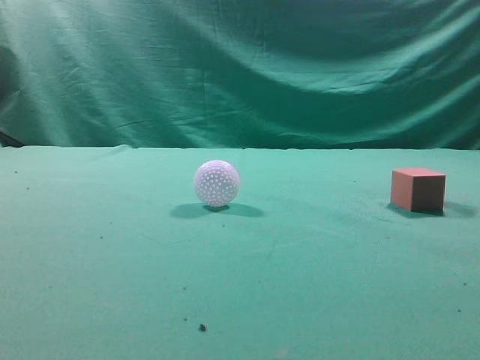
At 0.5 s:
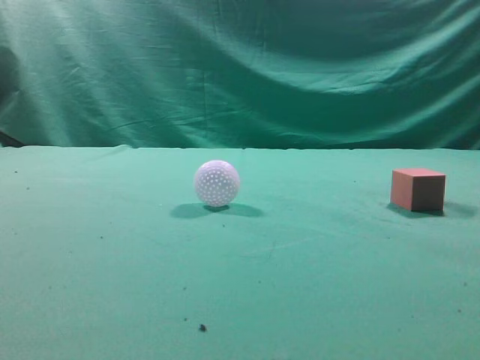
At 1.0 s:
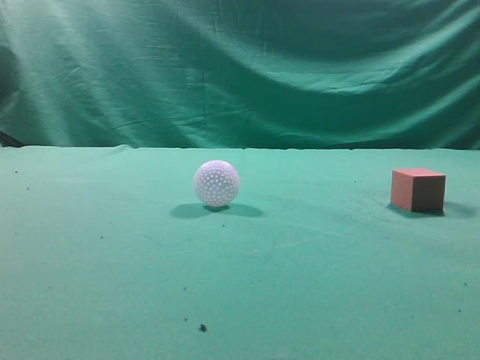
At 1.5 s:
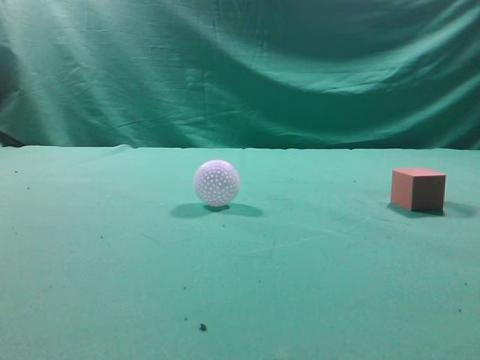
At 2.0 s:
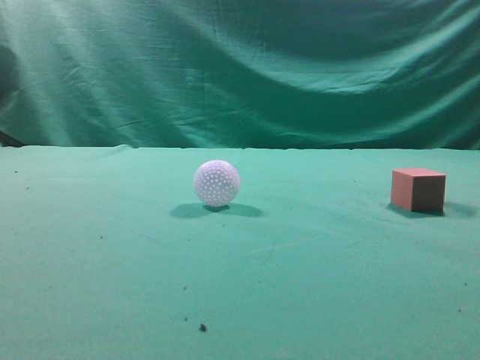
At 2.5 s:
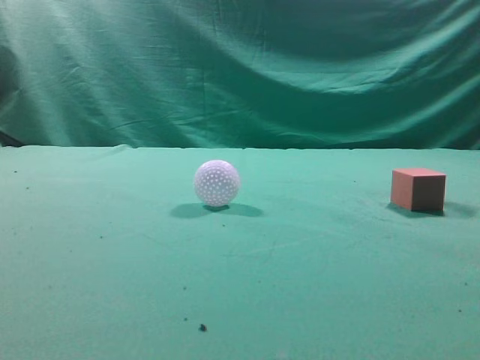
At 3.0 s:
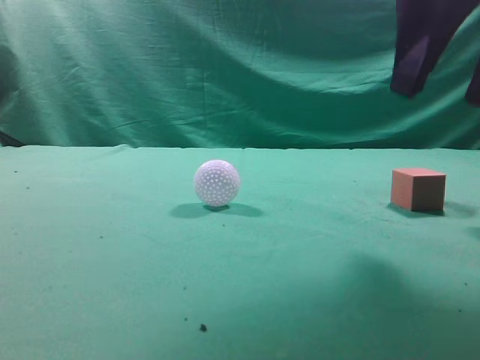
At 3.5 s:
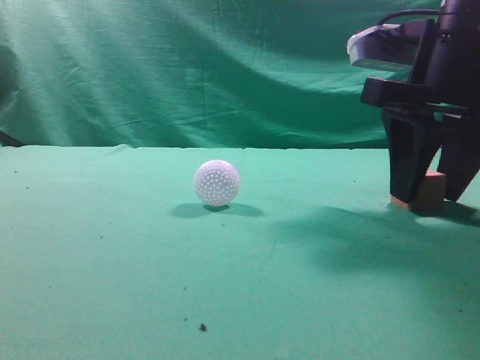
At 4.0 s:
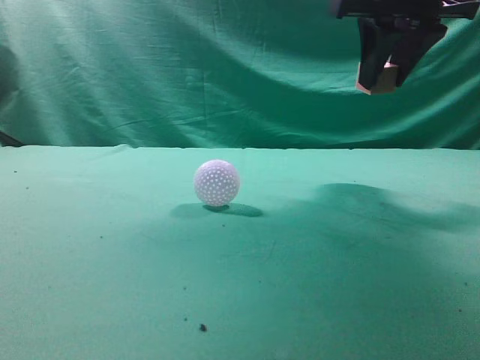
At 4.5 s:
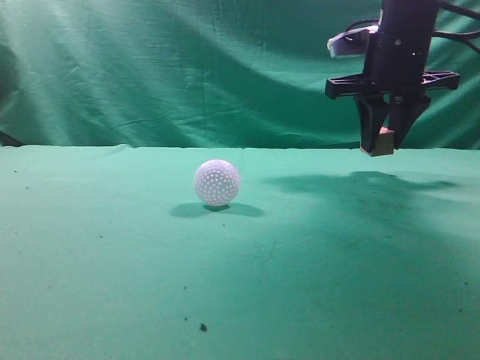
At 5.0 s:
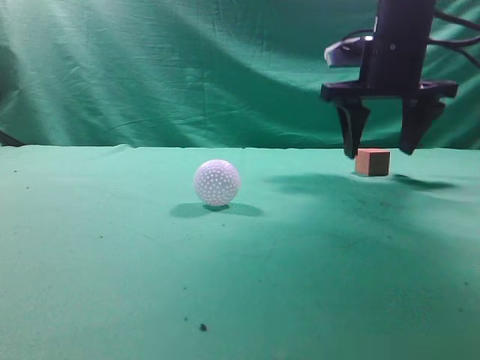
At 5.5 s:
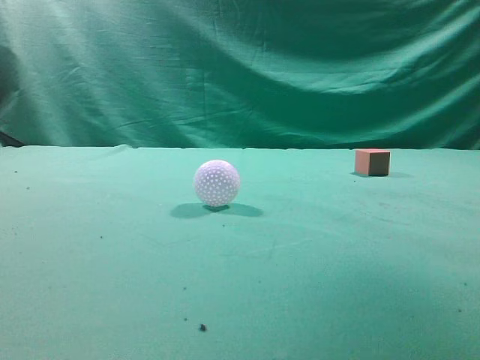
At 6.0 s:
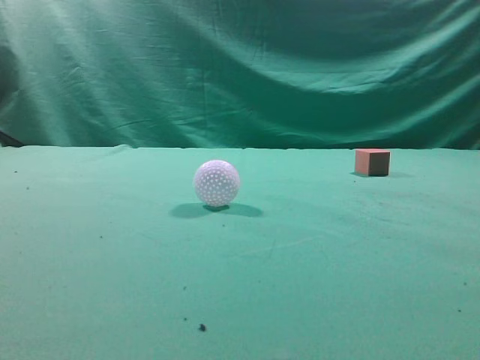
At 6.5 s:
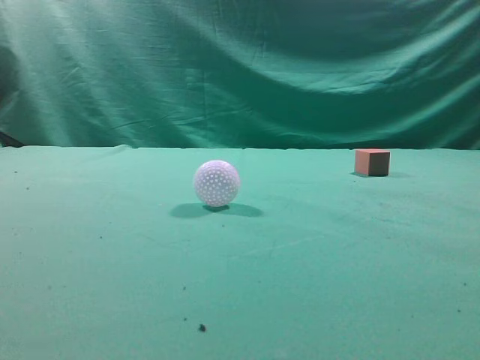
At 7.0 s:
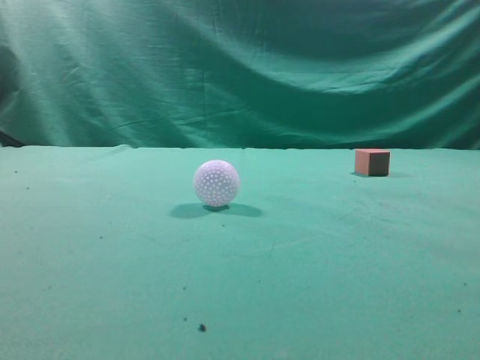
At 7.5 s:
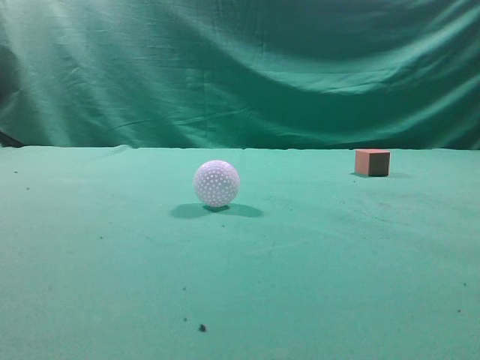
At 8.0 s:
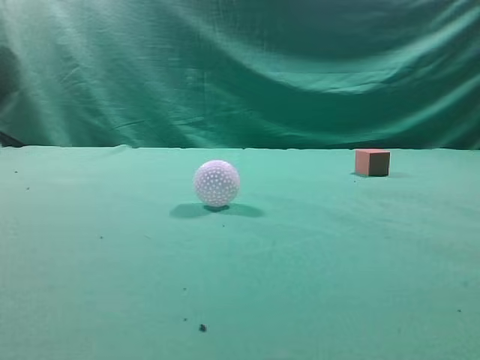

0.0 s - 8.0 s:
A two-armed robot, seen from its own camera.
Task of the whole recording: pick up the cube block and place it in another position on the table.
Step, 0.0 s - 3.5 s: Pick up the small cube.
Step, 4.0 s - 4.5 s: Place the small cube on the ahead of the table.
2.0 s - 4.0 s: The right gripper shifts roughly 30 cm forward and to the left, and opens.
4.0 s - 6.0 s: The right gripper travels backward, upward and to the right by some 25 cm, and closes up.
